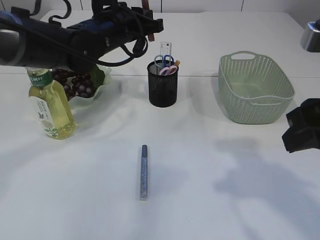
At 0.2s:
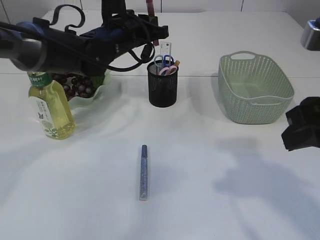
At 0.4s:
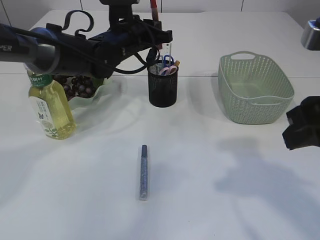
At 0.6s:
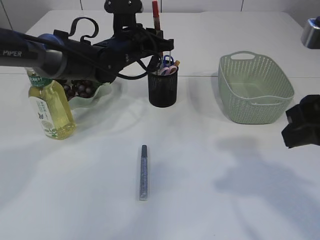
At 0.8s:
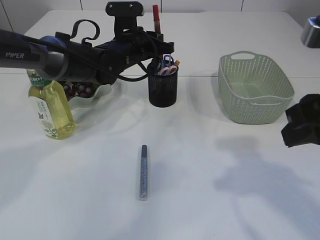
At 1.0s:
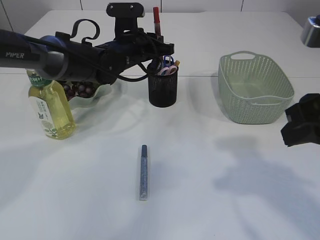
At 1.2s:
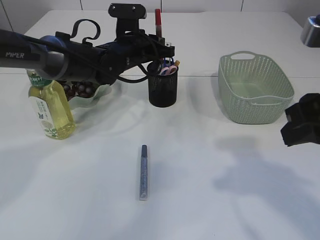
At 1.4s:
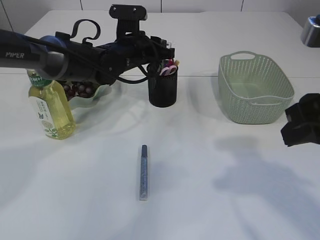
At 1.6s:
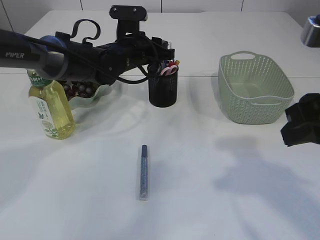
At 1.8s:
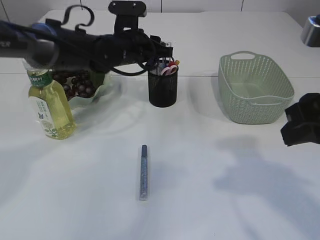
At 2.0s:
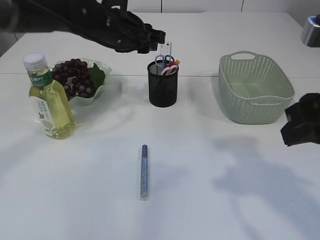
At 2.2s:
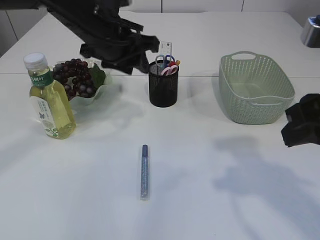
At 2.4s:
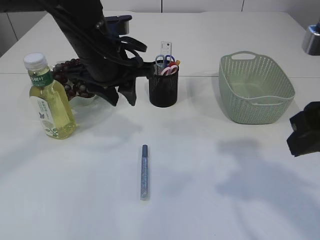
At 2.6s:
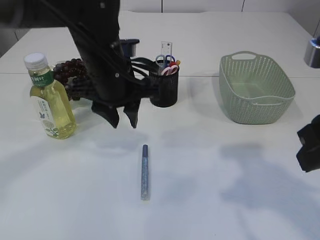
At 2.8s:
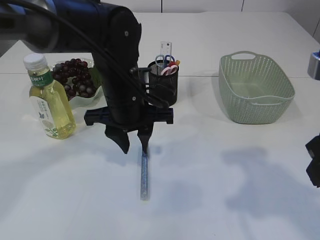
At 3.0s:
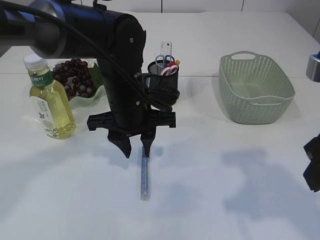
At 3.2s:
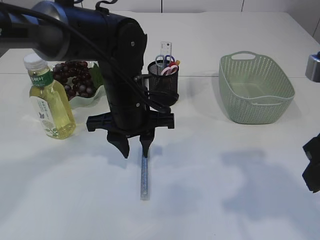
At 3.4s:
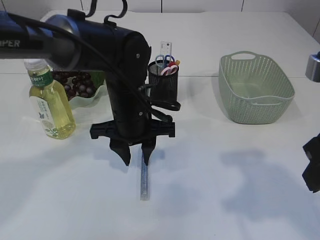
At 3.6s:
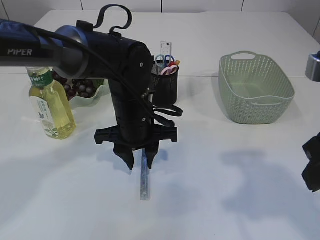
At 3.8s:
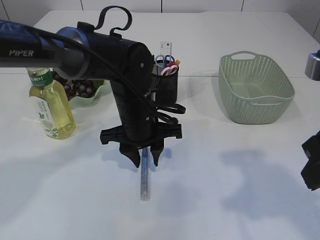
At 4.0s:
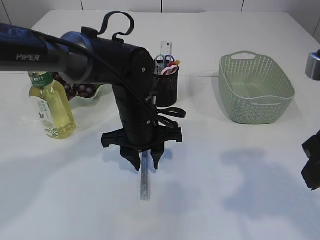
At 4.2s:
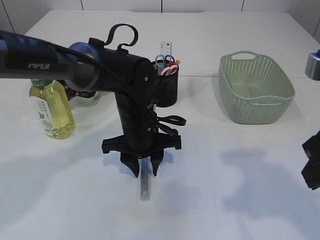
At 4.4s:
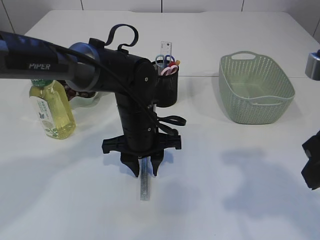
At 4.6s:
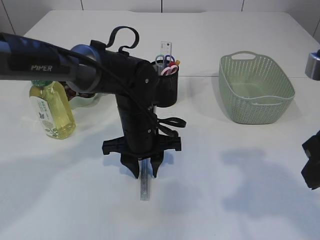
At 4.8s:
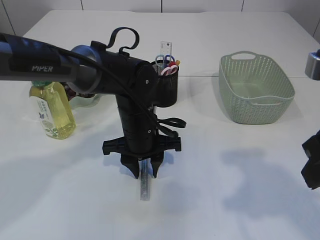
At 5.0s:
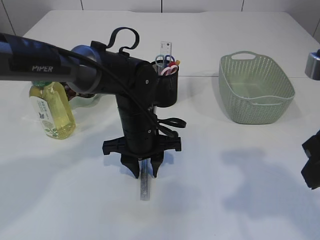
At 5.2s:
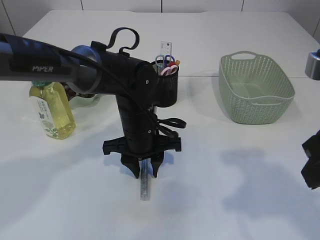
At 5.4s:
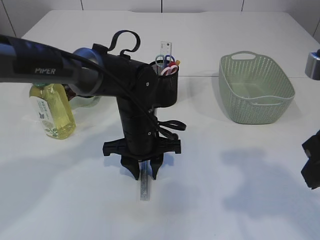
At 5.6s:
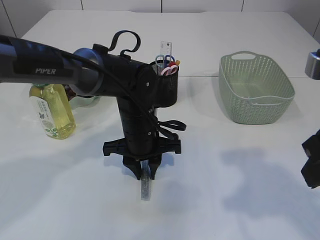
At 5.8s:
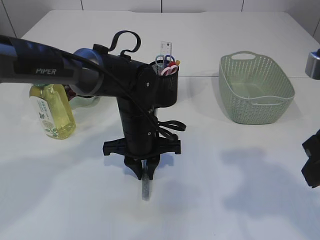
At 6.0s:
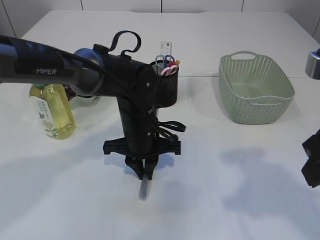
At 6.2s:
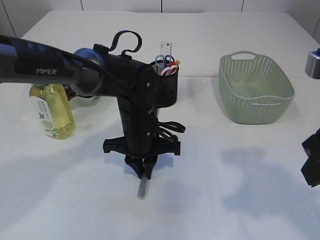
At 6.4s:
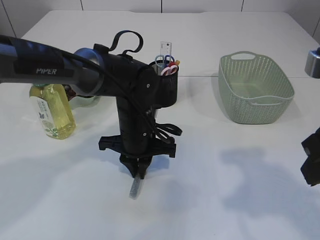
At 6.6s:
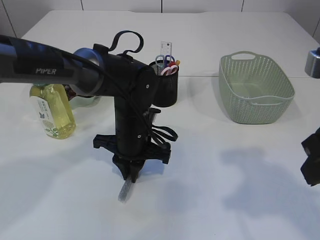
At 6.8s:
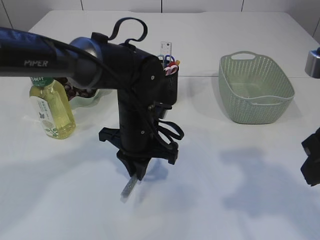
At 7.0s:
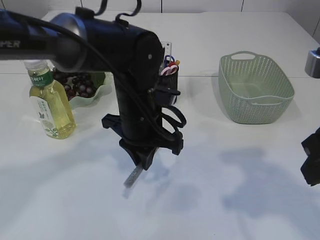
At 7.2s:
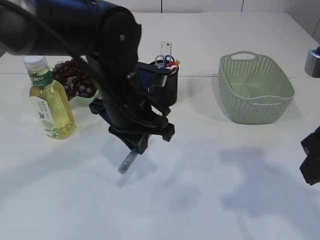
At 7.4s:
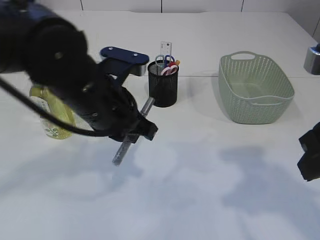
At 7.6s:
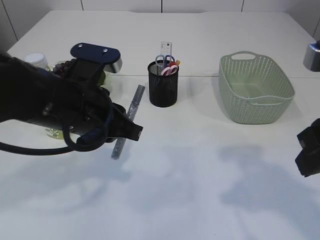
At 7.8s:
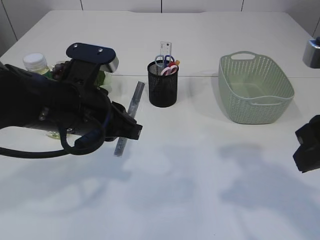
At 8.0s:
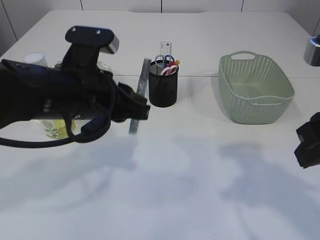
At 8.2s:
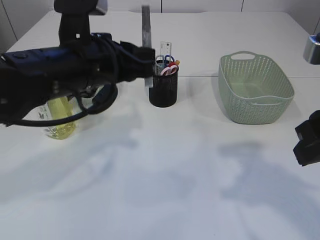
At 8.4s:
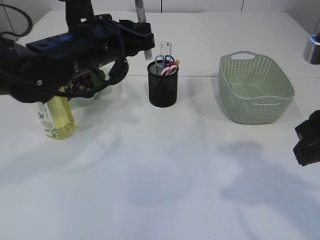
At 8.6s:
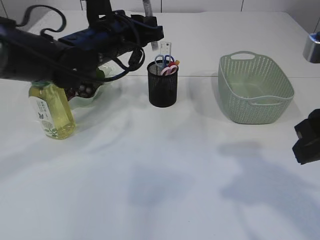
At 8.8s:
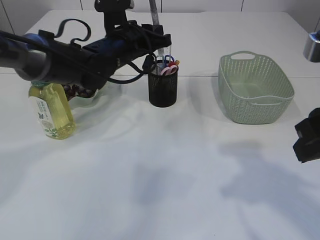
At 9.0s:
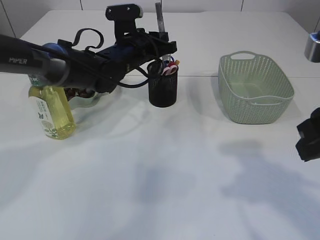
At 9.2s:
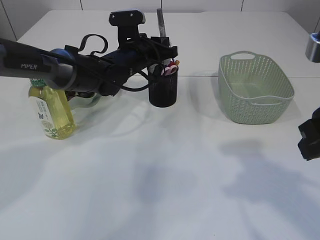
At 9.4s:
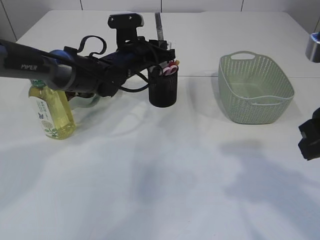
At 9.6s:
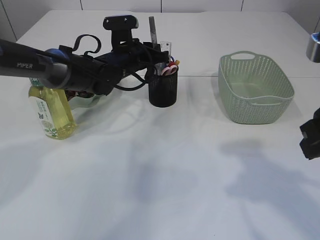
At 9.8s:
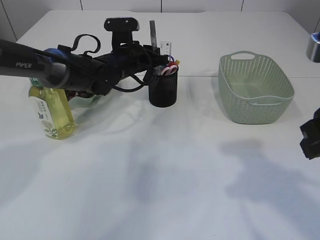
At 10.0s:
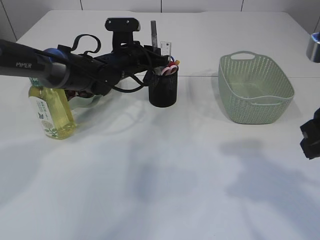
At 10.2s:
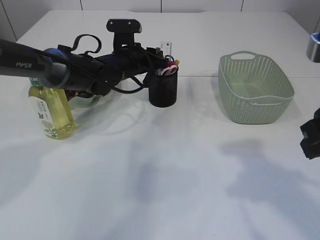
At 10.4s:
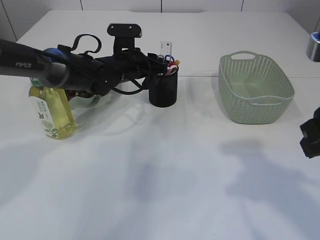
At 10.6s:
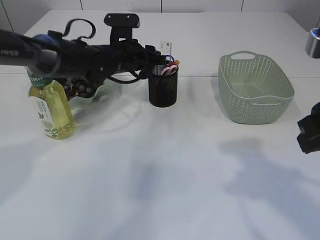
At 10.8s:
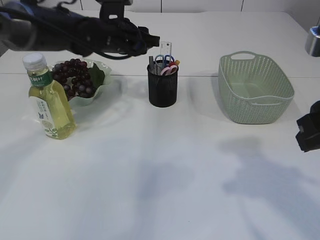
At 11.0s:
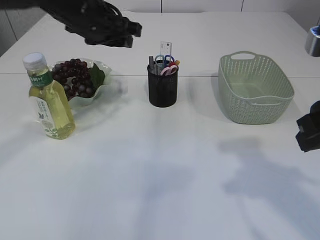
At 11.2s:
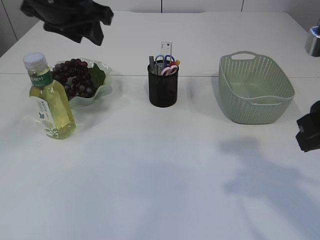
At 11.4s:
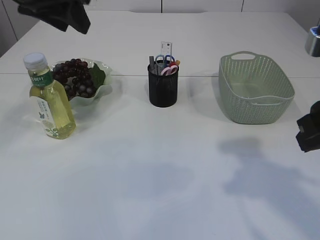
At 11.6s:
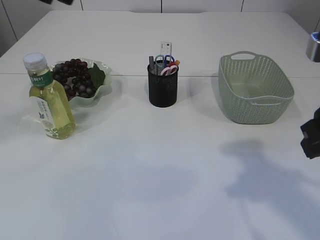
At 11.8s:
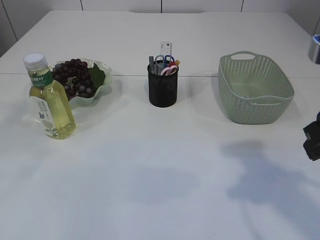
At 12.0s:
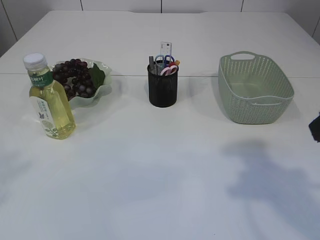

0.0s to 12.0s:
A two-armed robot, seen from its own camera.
Step, 0.0s to 1.8s: place the red glue into the pen holder.
Step, 2.0s to 7.6s: pick up the silver glue.
Step, 7.8s to 10.8s: place the silver glue into the pen holder.
0.0s to 1.6s: The left gripper travels downward by approximately 5 cm, and opens its fingers.
1.6s to 3.0s: The left gripper shifts roughly 15 cm backward.
3.0s to 4.4s: The left gripper is displaced downward by about 5 cm.
4.4s to 6.0s: Both grippers stay about where they are.
6.0s to 7.6s: The left gripper travels upward, backward and to the left by roughly 15 cm.
7.6s to 9.0s: The left gripper shifts roughly 20 cm forward.
9.0s to 10.4s: The left gripper opens its fingers.
10.4s to 12.0s: The left gripper is displaced backward, upward and to the left by some 50 cm.
